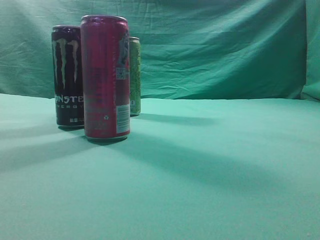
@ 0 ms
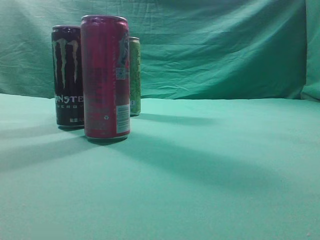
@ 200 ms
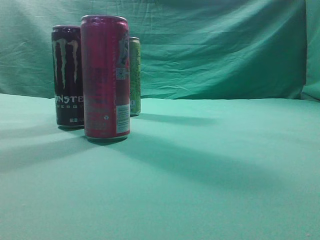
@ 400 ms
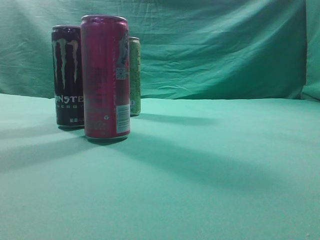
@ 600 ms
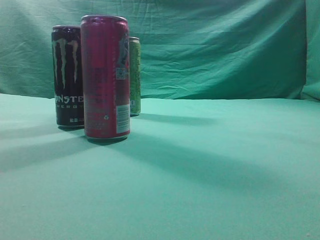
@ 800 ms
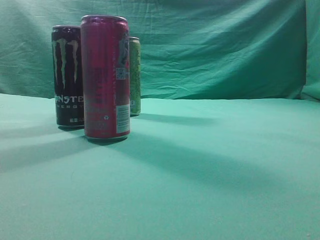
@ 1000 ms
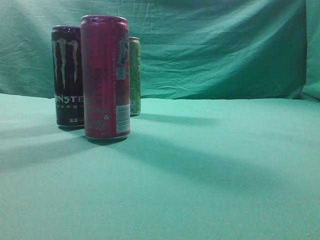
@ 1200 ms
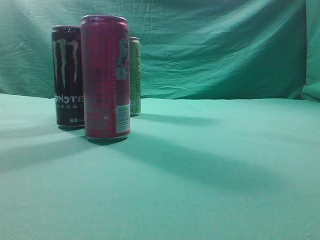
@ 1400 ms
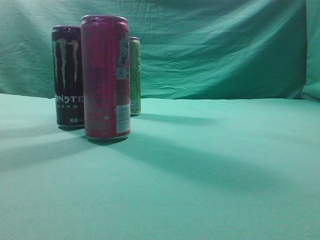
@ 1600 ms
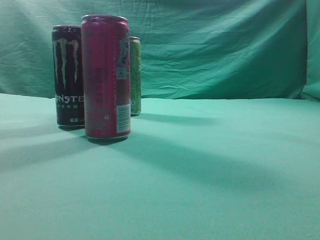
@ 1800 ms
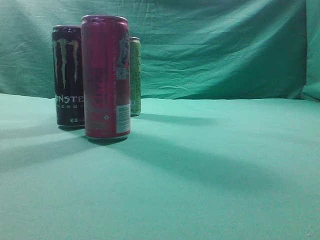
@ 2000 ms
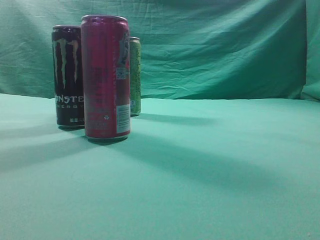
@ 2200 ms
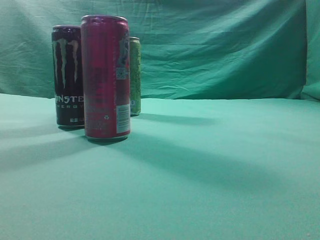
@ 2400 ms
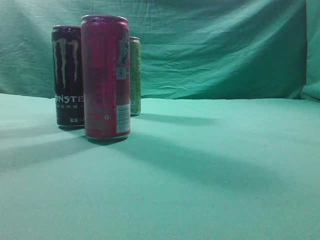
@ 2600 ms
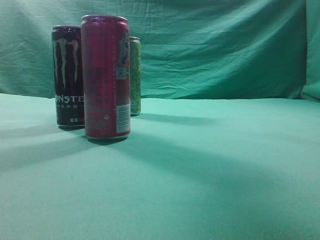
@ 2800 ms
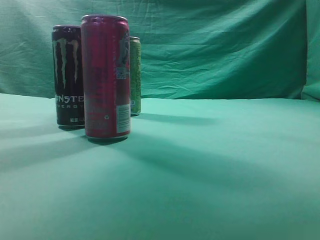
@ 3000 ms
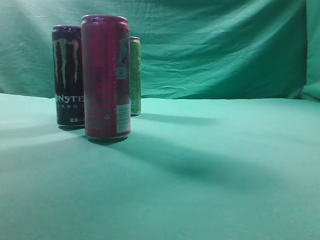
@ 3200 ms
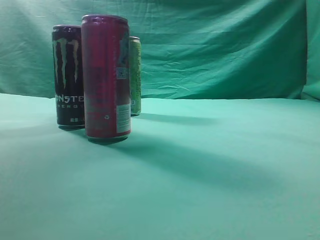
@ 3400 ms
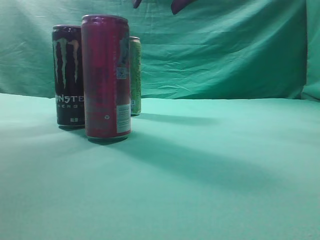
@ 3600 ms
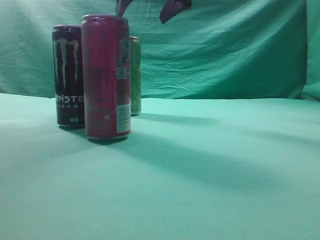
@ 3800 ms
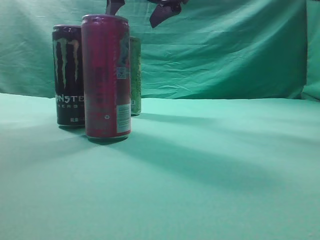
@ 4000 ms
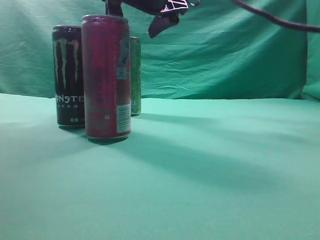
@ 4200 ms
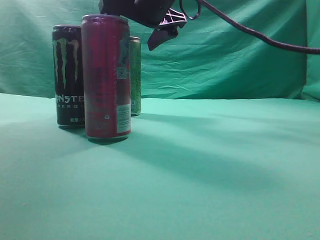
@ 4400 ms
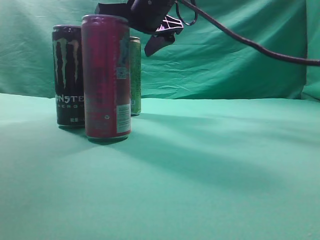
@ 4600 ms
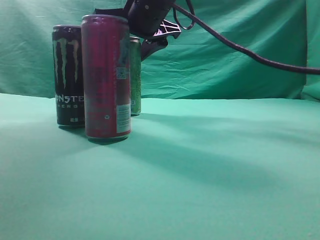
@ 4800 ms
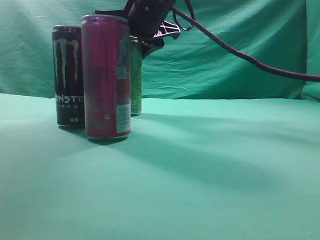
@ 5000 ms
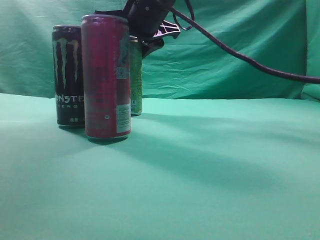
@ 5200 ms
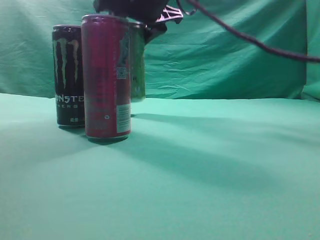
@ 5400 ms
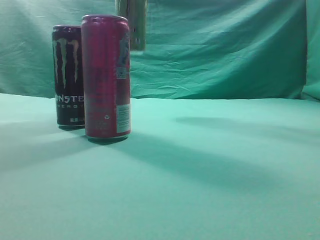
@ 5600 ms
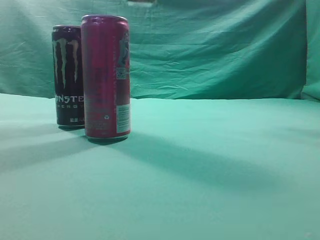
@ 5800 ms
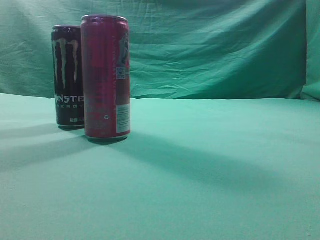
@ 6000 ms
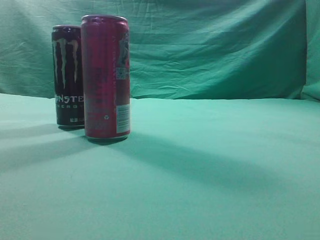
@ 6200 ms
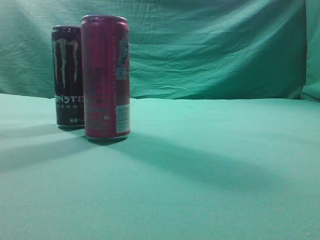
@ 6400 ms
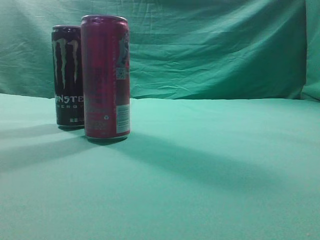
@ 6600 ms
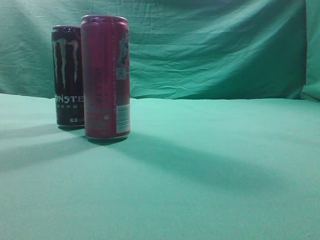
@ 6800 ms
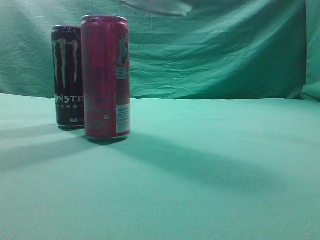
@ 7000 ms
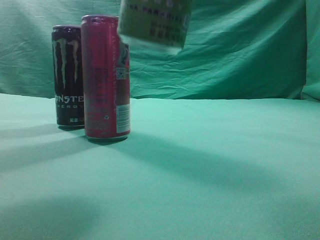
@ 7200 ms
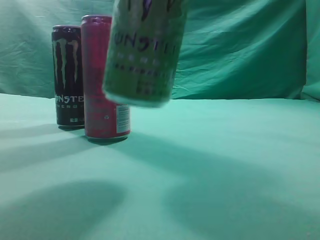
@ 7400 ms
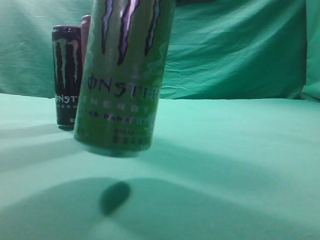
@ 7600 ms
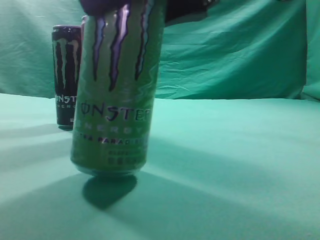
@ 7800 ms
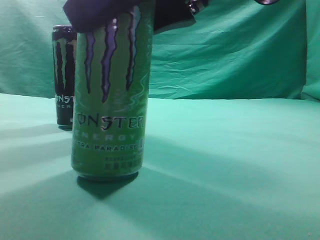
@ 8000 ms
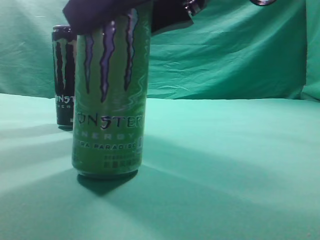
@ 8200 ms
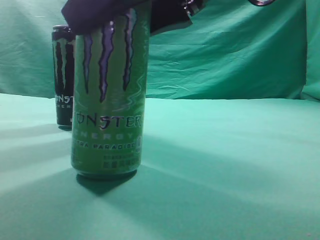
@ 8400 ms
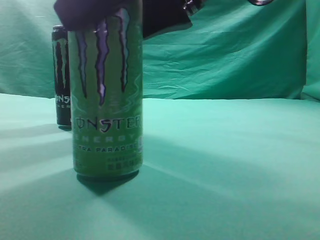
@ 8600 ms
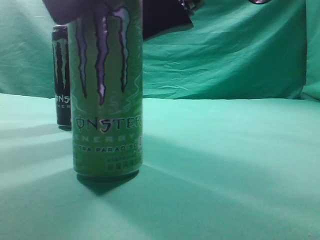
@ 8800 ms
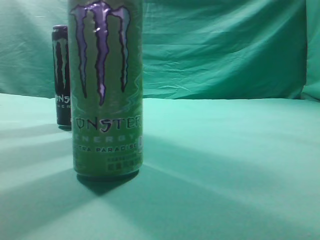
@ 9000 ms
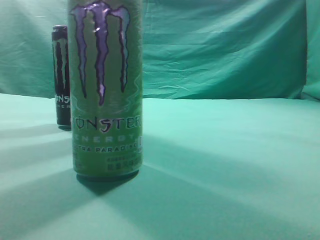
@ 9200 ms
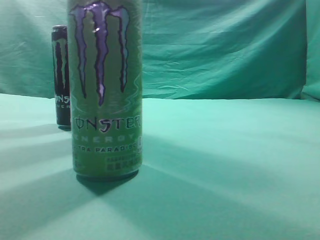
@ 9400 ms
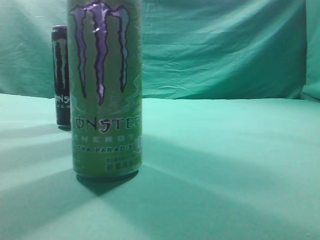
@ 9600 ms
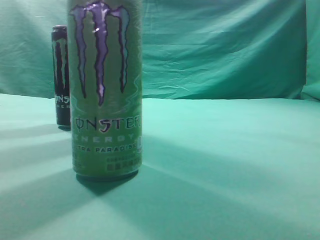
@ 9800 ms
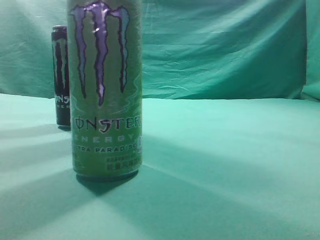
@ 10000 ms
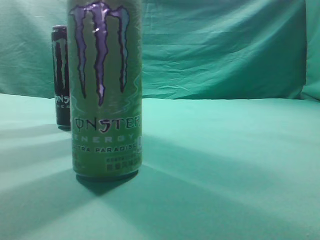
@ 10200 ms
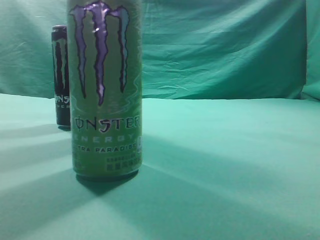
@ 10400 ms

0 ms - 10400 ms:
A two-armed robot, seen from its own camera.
Task of the whole recording: move one drink among three beverages.
Step, 0 ms - 5600 ms: Grasp the beverage bottle placed at the back of the desk.
Step, 5800 ms - 9200 ms: Place the beverage bottle to the front of the table.
1400 ms - 3000 ms: The right gripper shifts some 30 cm forward, to the left and upward.
3000 ms - 4400 ms: The right gripper moves to the left, forward and downward, some 20 cm, and opens its fingers.
4400 ms - 6000 ms: The right gripper shifts approximately 25 cm upward and backward.
6000 ms - 7400 ms: The right gripper moves downward and backward, about 25 cm.
9000 ms - 10400 ms: The right gripper is displaced to the right, backward and upward by approximately 20 cm, and closes its fingers.
